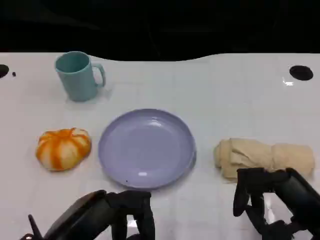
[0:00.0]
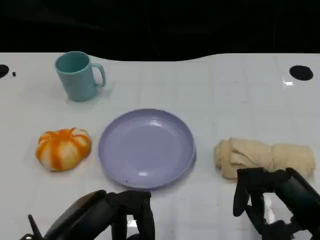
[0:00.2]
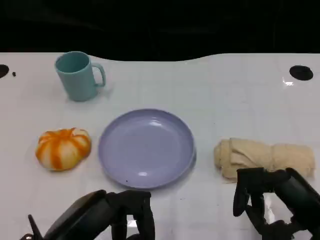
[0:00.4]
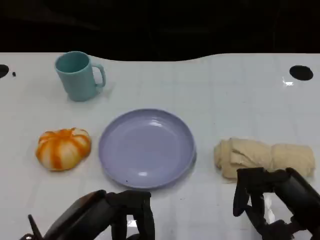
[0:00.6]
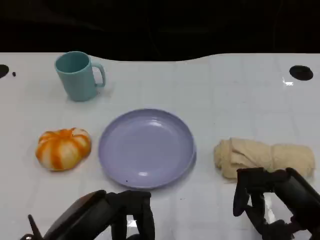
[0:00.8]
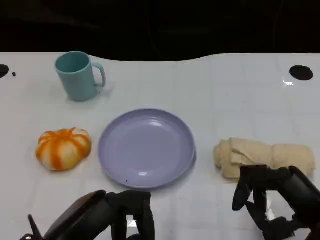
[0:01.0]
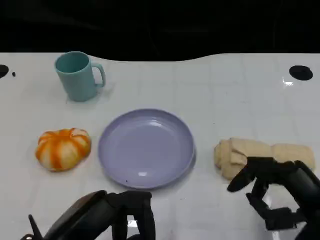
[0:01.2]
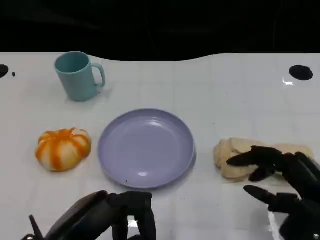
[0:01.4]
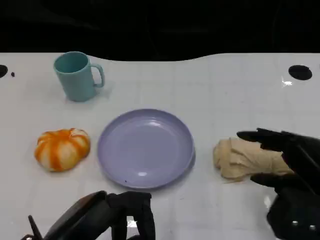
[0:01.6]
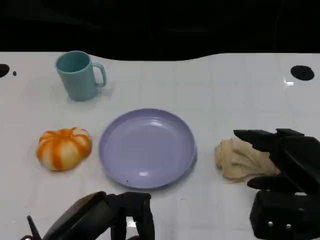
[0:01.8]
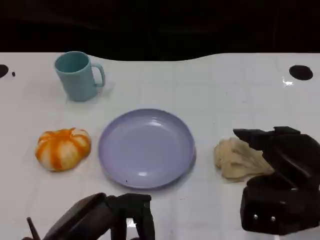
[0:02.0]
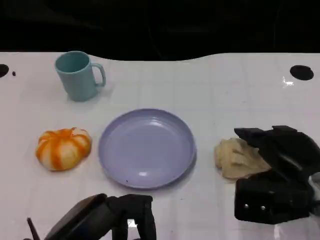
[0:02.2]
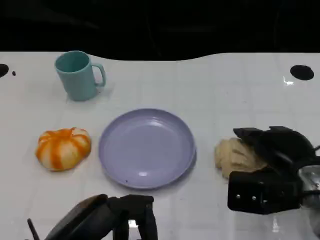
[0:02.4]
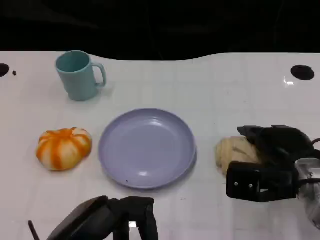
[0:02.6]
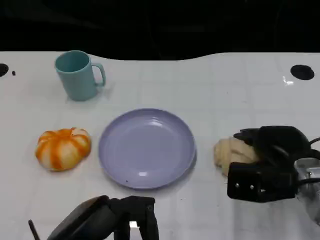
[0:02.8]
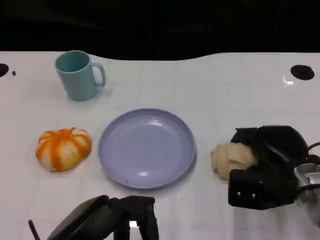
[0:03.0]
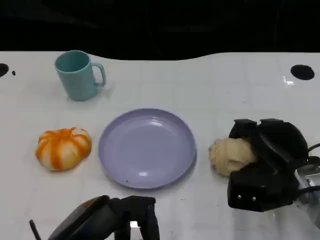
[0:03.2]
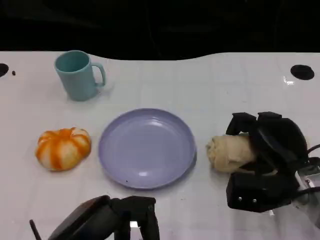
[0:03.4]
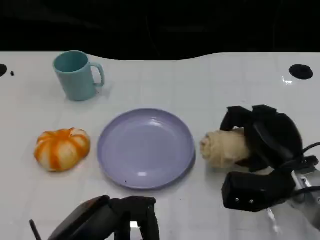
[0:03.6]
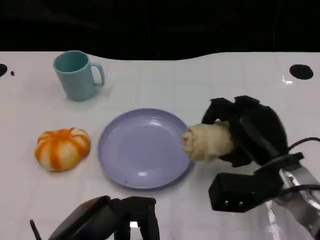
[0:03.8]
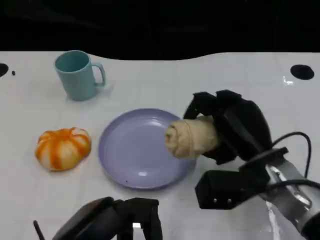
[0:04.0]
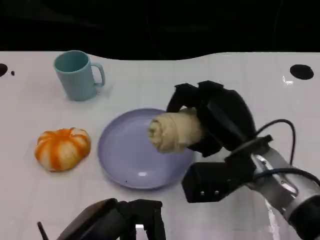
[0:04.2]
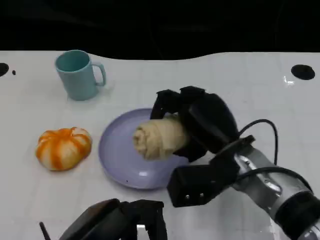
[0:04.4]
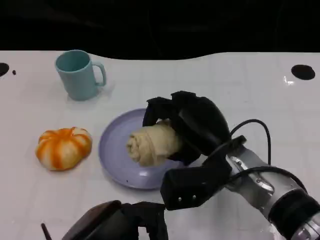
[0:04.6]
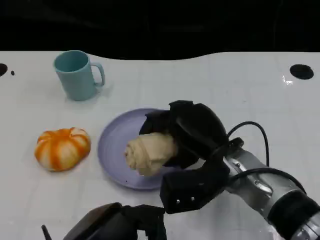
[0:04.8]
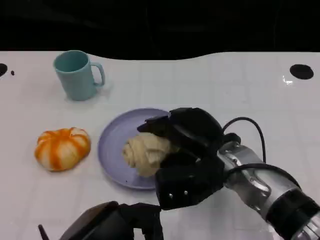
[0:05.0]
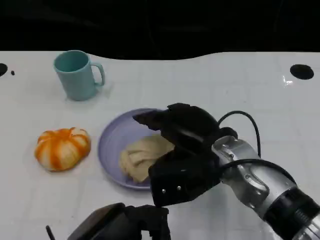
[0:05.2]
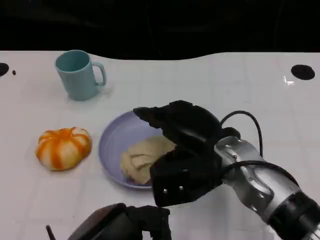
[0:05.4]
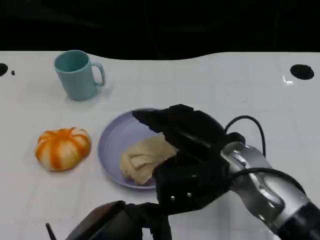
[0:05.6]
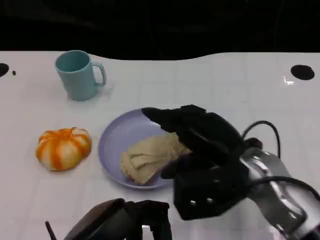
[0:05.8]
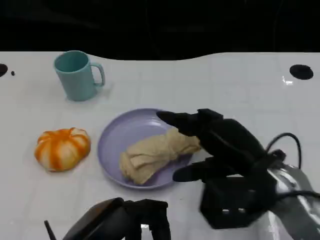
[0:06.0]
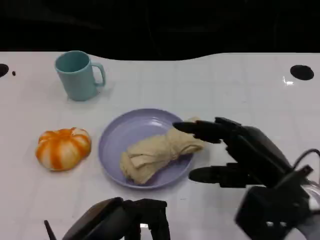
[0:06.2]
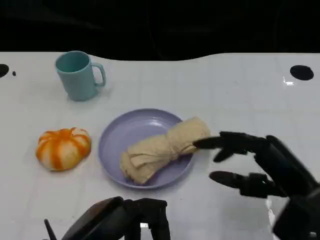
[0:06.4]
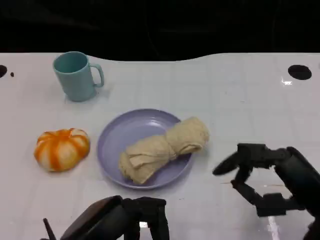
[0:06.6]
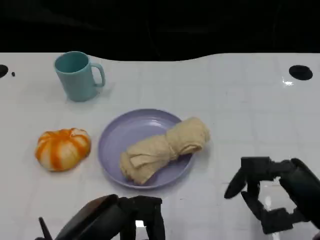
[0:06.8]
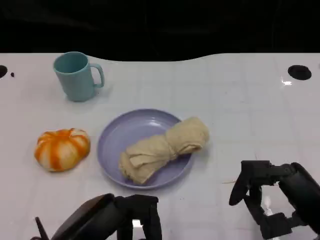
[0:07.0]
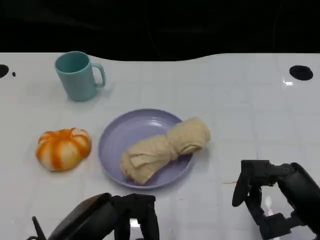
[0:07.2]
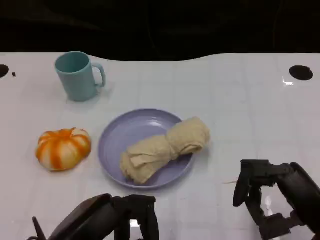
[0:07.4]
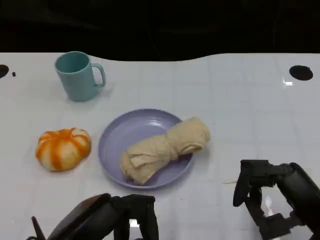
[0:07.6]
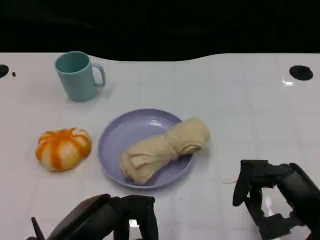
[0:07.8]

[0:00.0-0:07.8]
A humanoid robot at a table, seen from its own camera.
Task of the whole recording: Grasp the towel on the left side of the plate with the left hand and place it into the plate.
0:01.6 to 0:03.2: The right hand heads forward and downward, covering roughly 10 cm.
0:03.2 to 0:04.6: The right hand is displaced to the left by some 10 cm.
0:04.6 to 0:06.2: The right hand heads to the right and backward, covering some 10 cm.
0:06.2 to 0:07.8: The right hand moves about 5 cm.

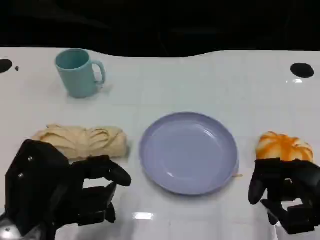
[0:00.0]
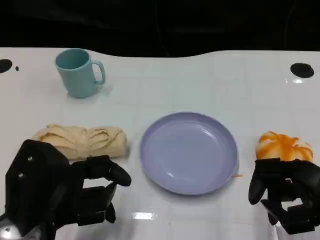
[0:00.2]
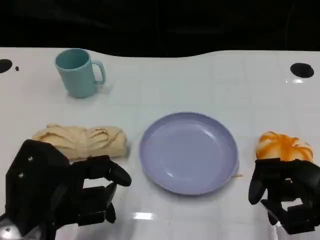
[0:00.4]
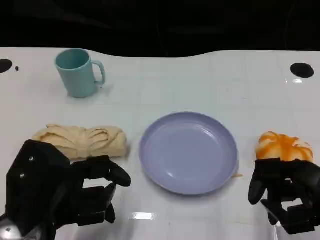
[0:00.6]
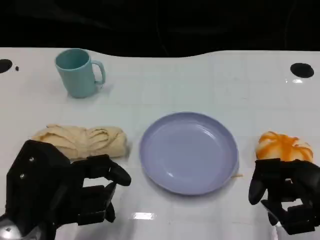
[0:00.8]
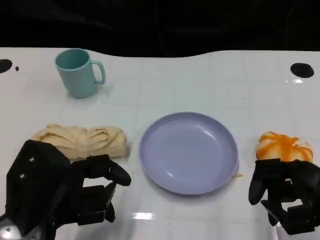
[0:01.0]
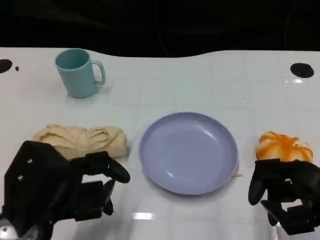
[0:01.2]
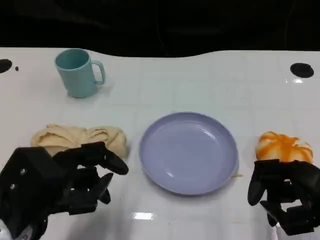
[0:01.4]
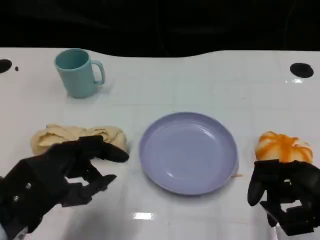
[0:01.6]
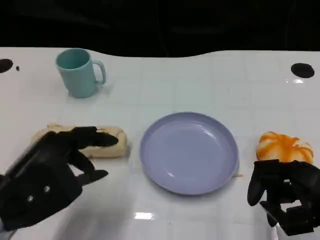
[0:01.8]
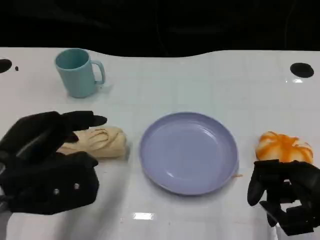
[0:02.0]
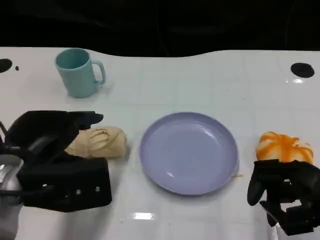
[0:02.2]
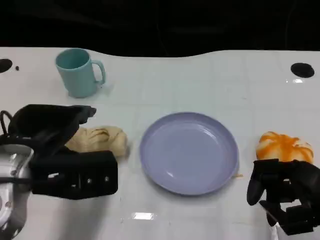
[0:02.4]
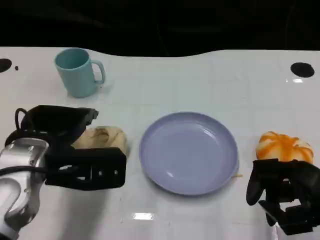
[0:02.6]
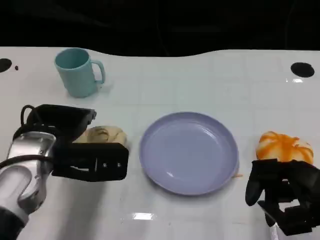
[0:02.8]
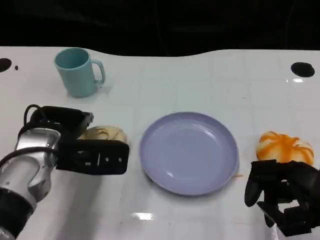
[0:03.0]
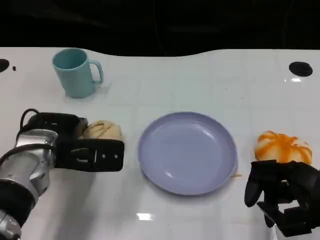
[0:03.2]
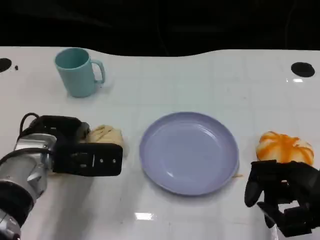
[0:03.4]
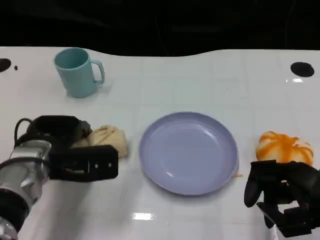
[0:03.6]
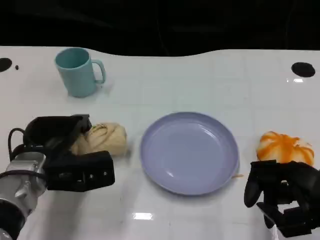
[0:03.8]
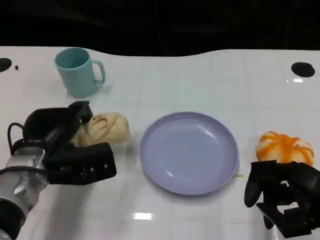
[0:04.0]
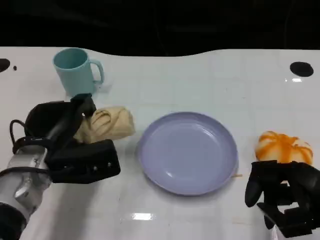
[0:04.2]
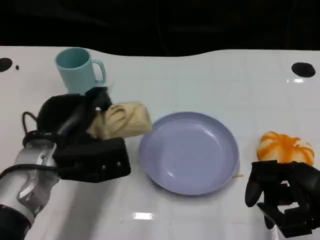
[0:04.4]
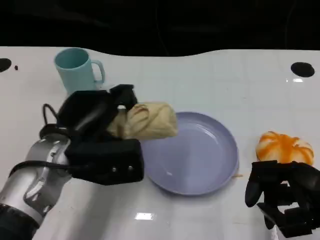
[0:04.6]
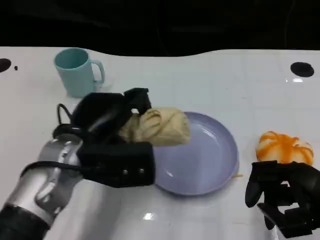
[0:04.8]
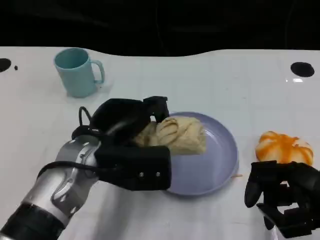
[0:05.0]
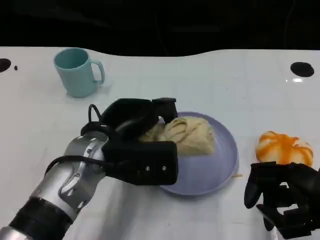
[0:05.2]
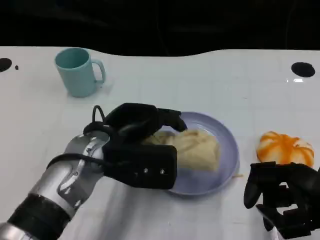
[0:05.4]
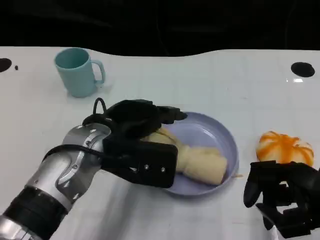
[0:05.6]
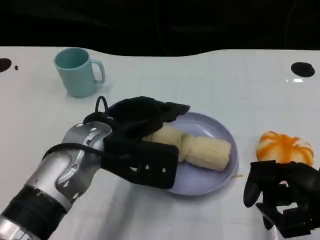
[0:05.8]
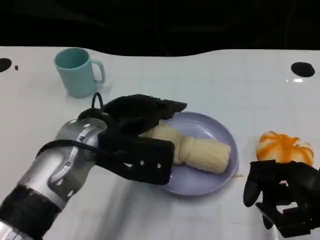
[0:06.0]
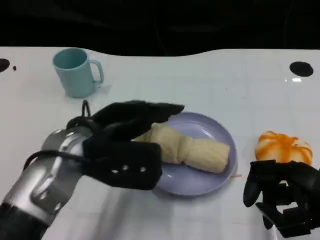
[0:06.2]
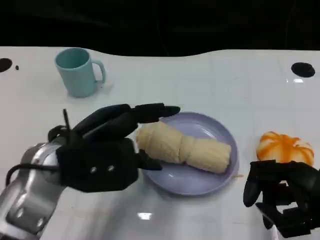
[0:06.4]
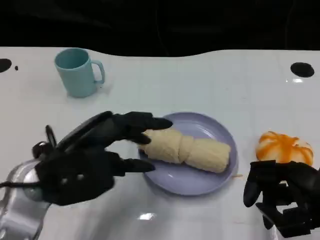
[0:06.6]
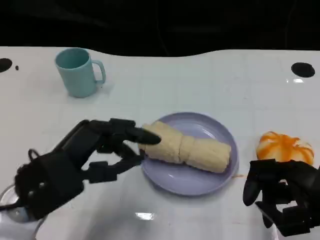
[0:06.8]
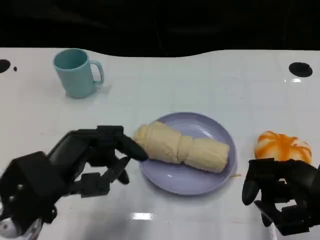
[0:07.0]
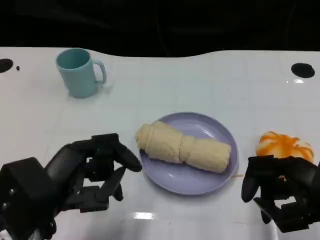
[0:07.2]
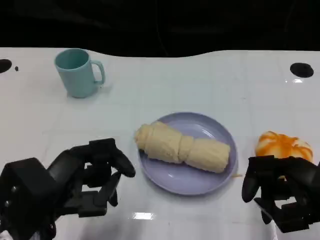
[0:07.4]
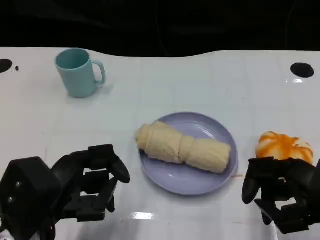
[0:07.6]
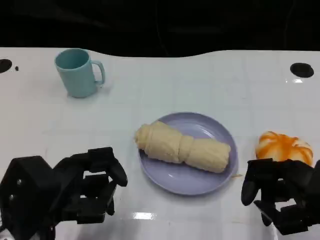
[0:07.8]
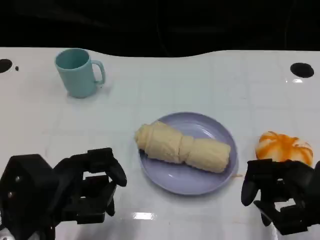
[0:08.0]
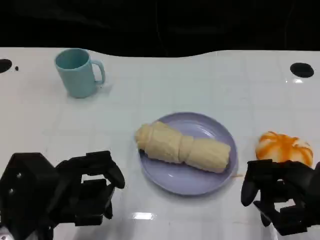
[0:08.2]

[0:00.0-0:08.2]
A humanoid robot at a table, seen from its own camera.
Task of the whole recording: Grasp the towel on the left side of the plate with the left hand and place it into the plate.
0:01.6 to 0:03.2: The left hand is displaced forward by about 10 cm.
0:03.2 to 0:05.0: The left hand shifts approximately 5 cm to the right.
0:05.0 to 0:06.6: The left hand shifts roughly 5 cm to the left.
0:06.6 to 0:08.2: The left hand heads backward, covering about 5 cm.

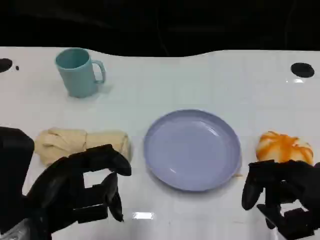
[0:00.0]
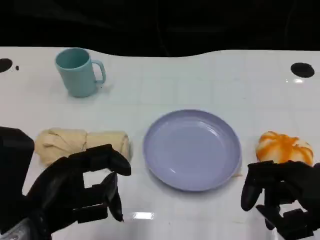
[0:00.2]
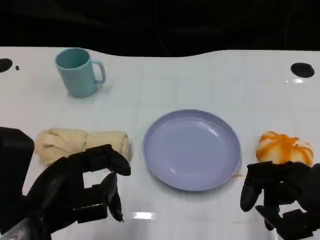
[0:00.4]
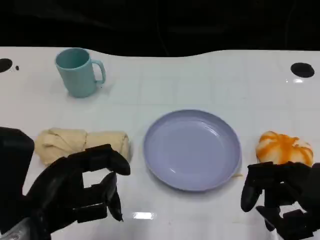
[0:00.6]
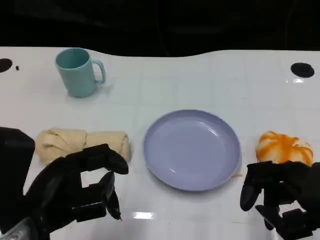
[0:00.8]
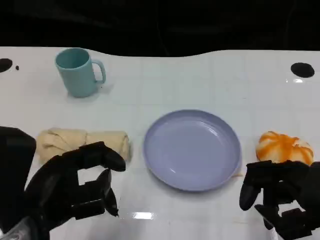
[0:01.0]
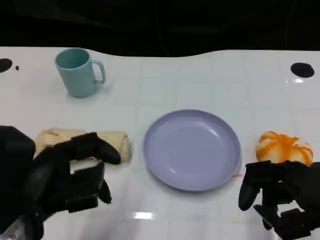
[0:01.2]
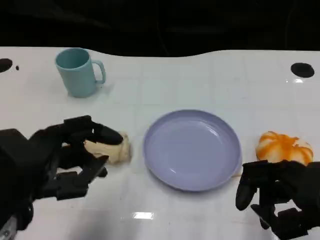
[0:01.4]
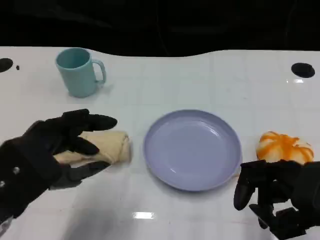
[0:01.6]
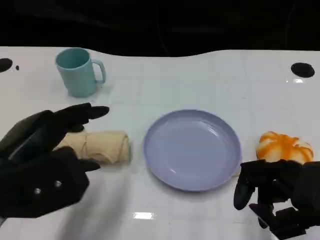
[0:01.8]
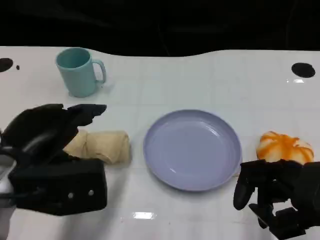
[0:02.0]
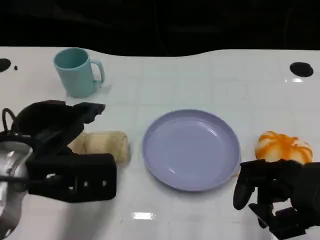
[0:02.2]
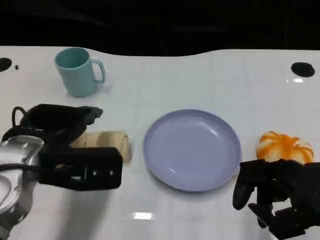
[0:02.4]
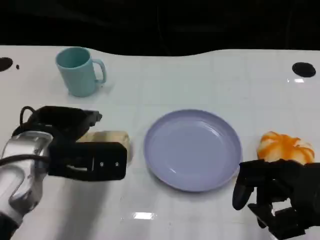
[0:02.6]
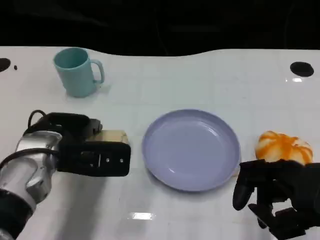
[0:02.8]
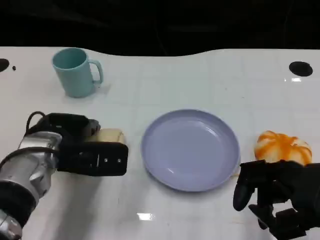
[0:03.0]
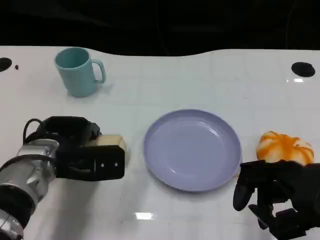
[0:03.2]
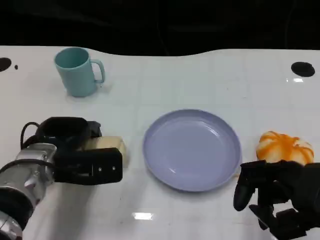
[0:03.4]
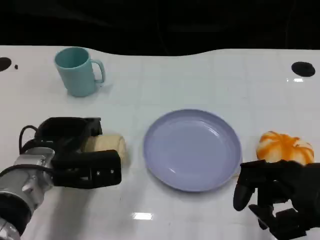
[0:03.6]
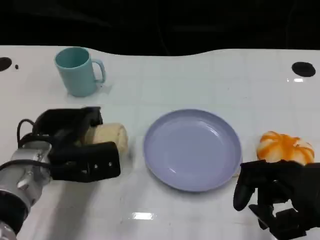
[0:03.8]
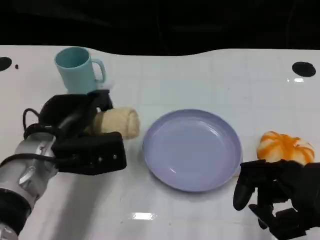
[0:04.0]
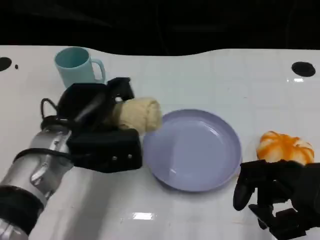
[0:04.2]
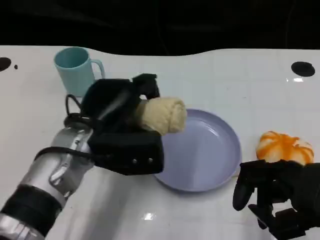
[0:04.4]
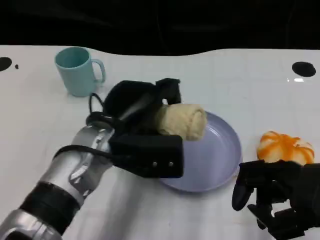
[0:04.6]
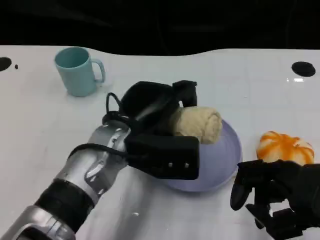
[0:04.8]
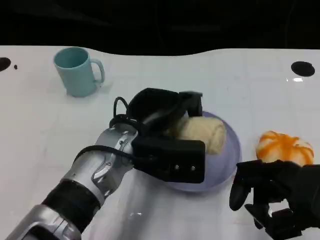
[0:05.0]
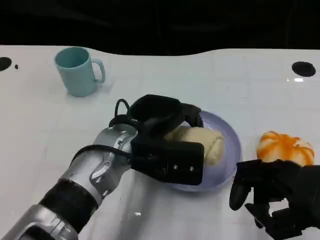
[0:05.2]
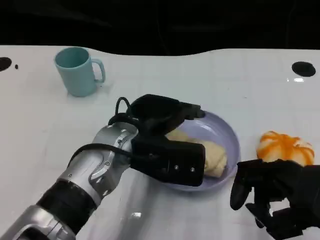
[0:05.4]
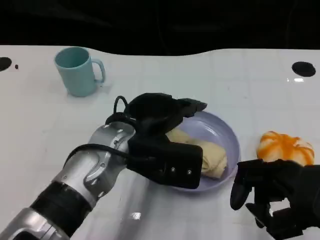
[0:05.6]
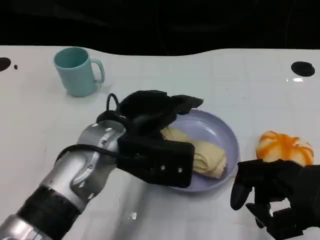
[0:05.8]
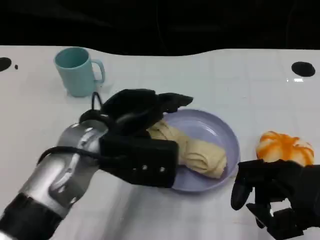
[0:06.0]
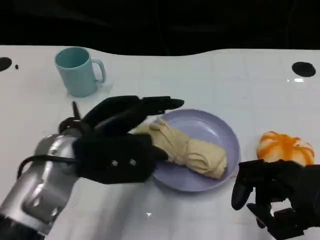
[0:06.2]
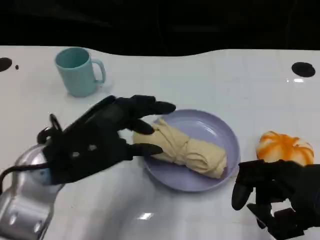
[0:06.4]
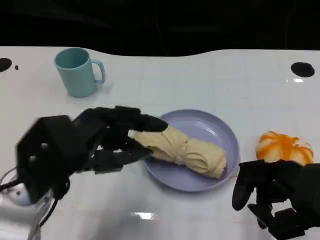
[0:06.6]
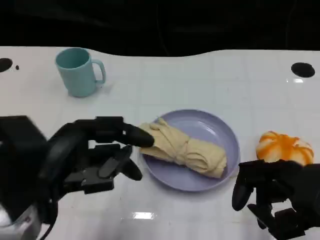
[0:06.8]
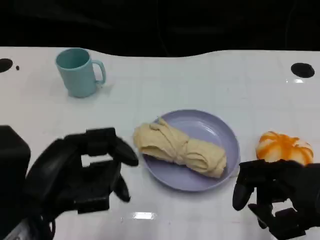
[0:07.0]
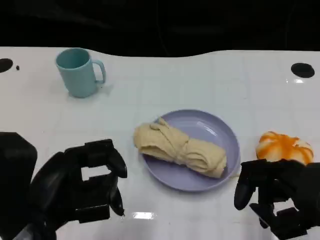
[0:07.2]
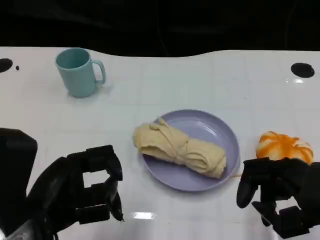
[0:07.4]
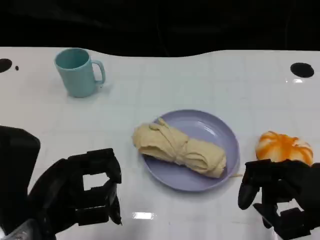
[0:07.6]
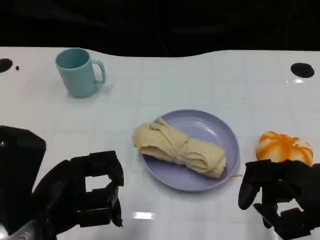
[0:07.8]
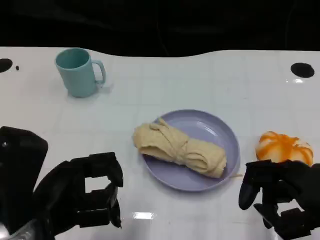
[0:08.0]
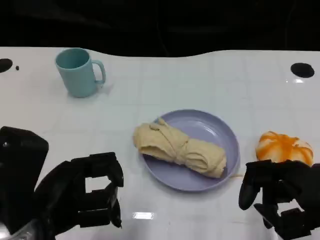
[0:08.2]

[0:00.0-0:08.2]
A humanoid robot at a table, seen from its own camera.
Task of the whole recording: Grasp the towel on the left side of the plate with the left hand and place it into the plate.
0:01.6 to 0:03.2: The left hand heads forward and downward, covering approximately 15 cm.
0:03.2 to 0:05.0: The left hand travels to the right and upward by approximately 15 cm.
0:05.0 to 0:06.6: The left hand is displaced to the left and backward by about 15 cm.
